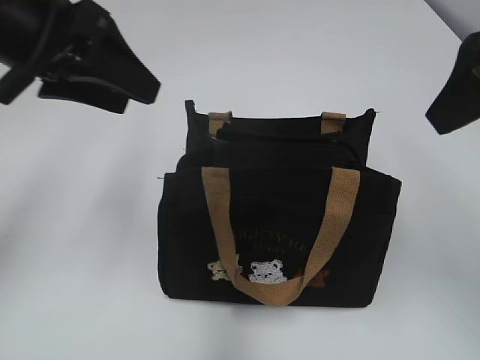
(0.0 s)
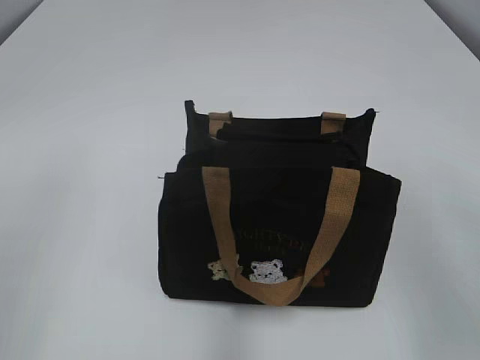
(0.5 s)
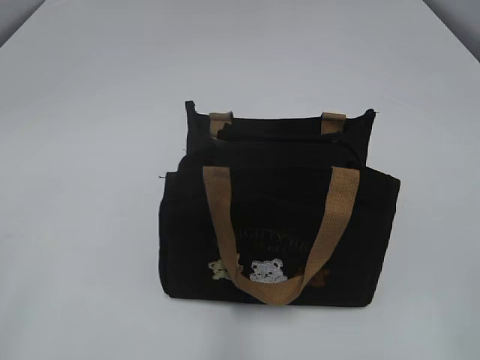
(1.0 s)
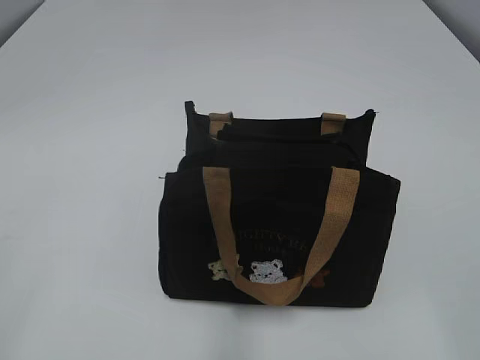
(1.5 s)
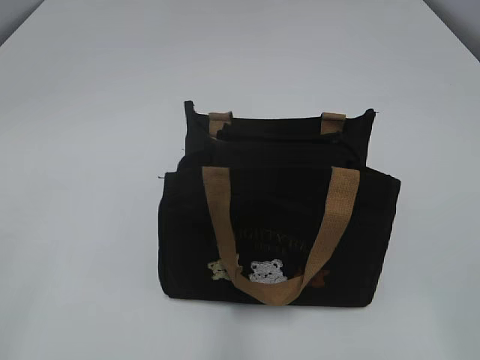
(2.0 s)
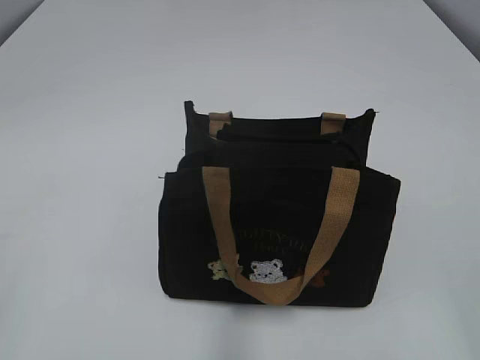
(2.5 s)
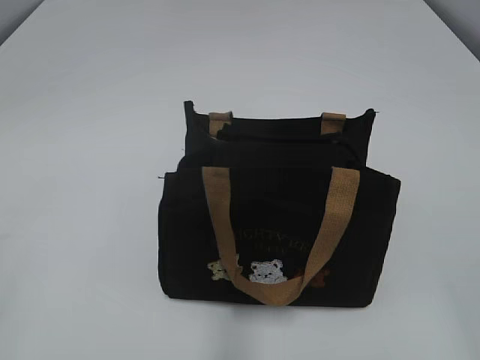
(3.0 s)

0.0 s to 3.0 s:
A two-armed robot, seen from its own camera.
0.0 to 1.5 s: The right gripper heads backward, covering some 25 cm; the left gripper goes roughly 30 cm backward and to the left.

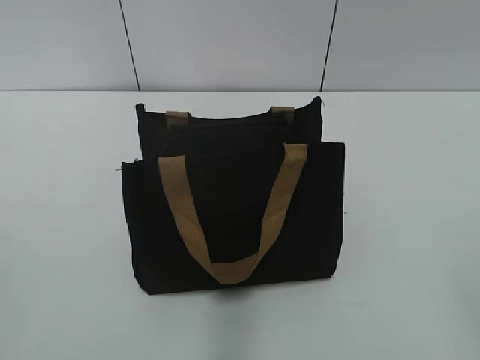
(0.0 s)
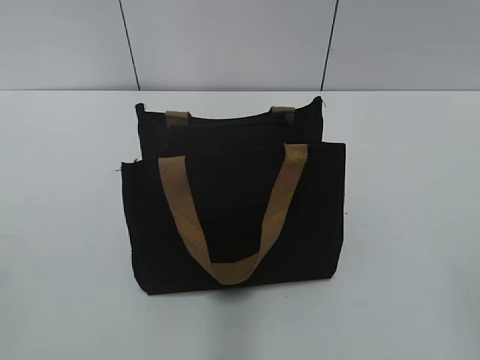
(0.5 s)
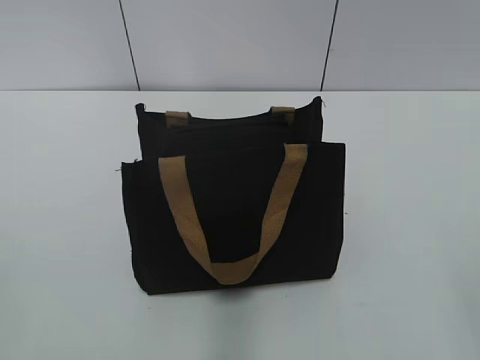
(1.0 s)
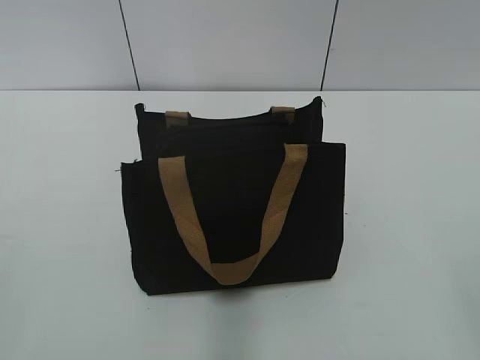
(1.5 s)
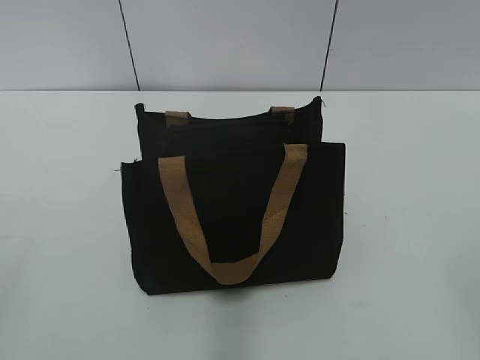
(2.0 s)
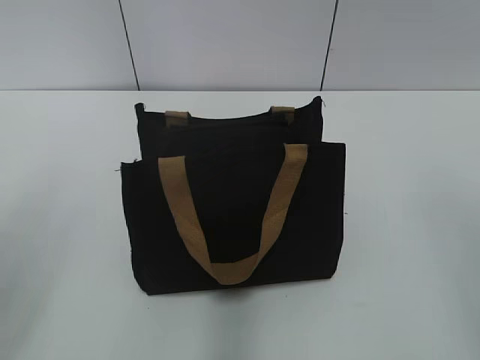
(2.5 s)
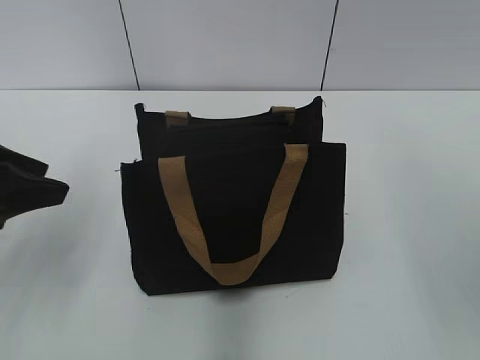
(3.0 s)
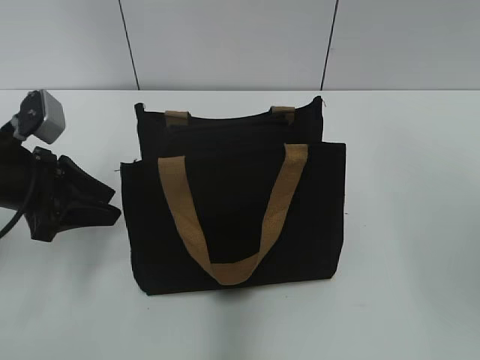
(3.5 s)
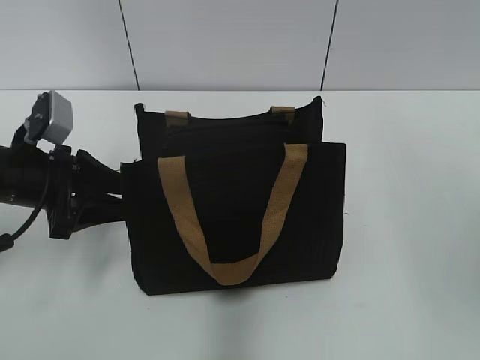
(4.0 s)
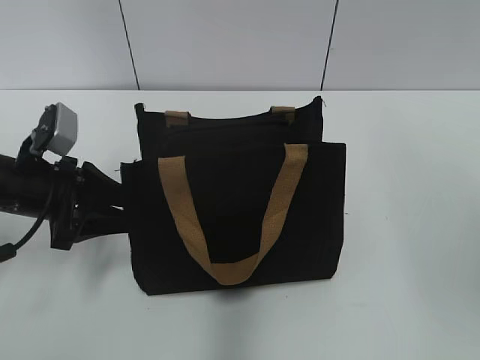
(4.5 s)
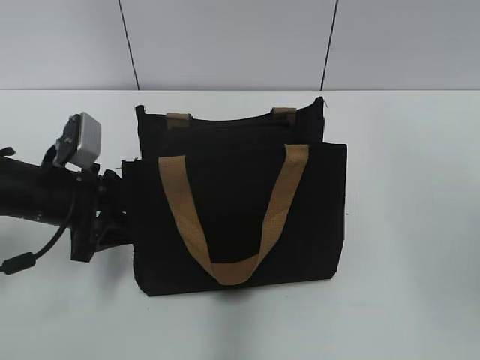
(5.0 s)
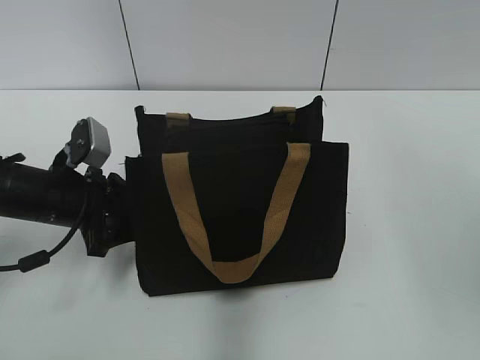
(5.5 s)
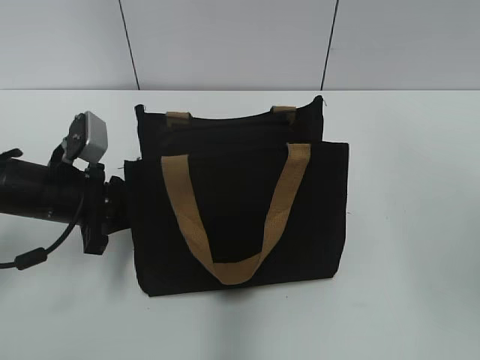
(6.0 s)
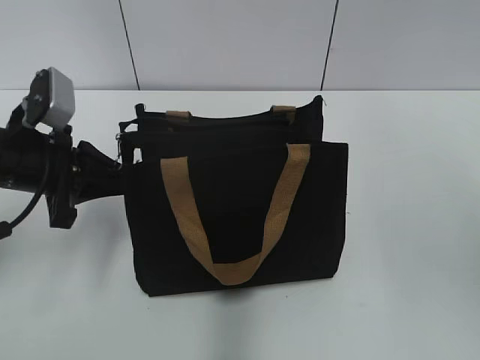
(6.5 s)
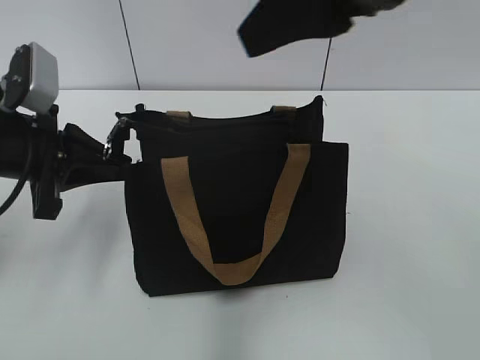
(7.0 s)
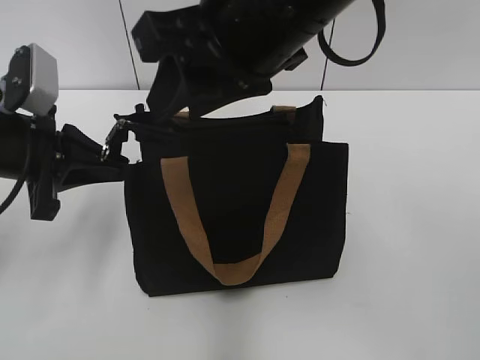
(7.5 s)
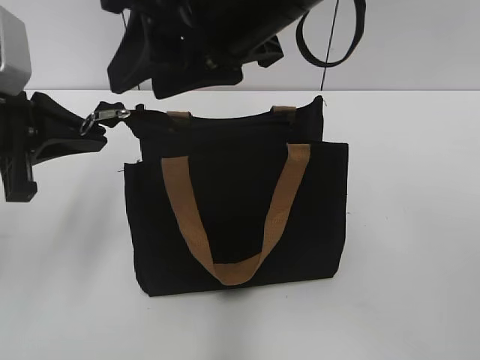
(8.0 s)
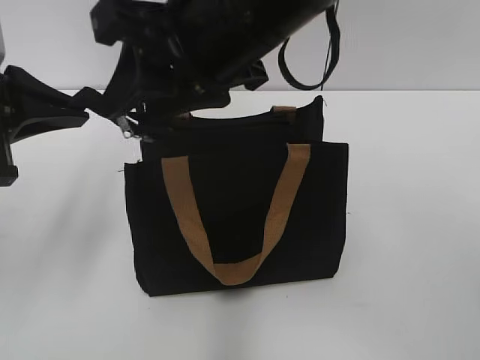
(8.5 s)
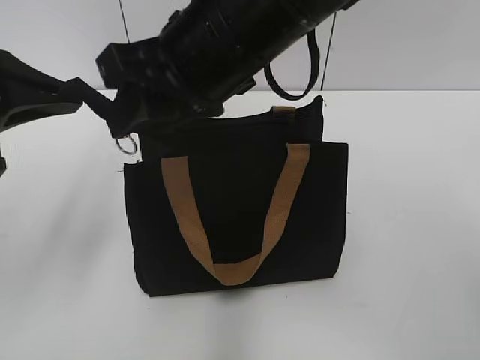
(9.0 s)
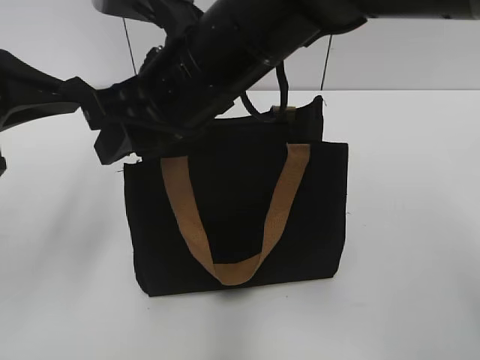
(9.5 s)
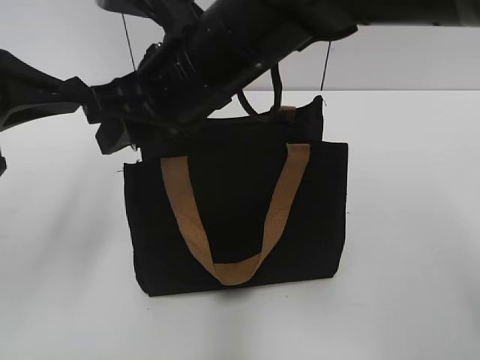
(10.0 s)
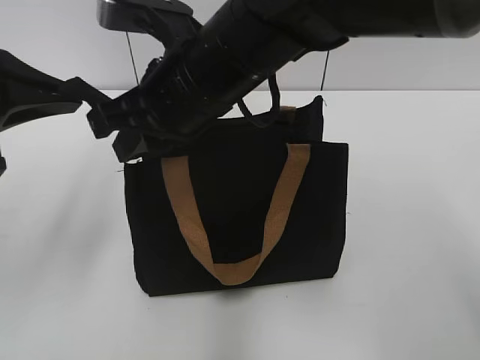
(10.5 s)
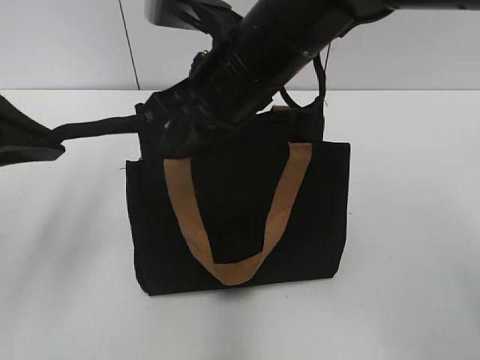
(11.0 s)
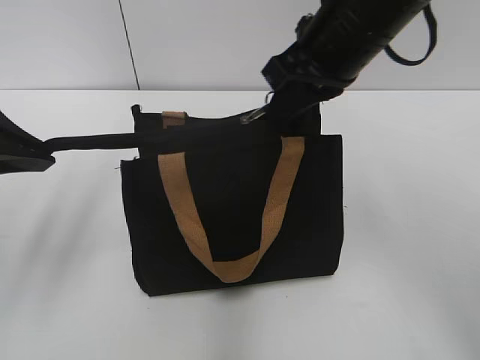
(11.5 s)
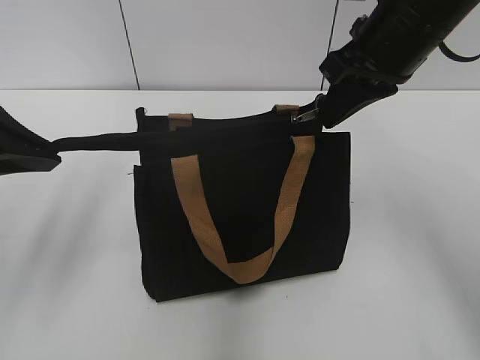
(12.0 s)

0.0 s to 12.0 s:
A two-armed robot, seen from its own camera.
2.0 to 4.0 s: The left gripper goes roughly 35 cm forward and downward.
4.0 to 6.0 s: The left gripper closes up.
6.0 to 8.0 s: The left gripper travels upward by about 15 cm, while the right gripper is displaced to the left by approximately 25 cm.
8.0 to 10.0 s: The left gripper ends up approximately 5 cm from where it was, while the right gripper goes roughly 5 cm downward.
10.0 to 12.0 s: The right gripper shifts roughly 15 cm to the right, and closes its fingers.

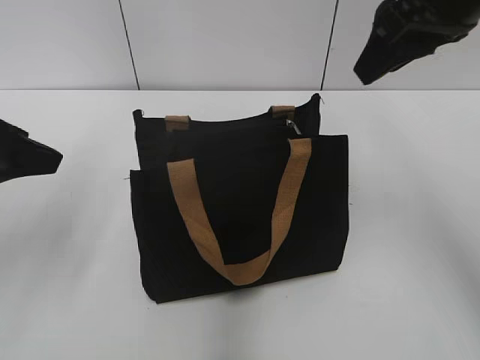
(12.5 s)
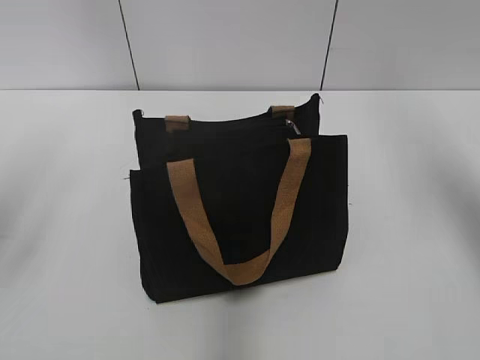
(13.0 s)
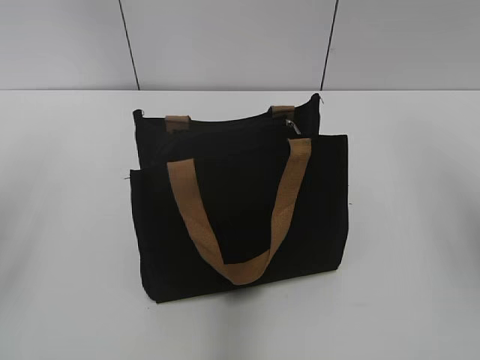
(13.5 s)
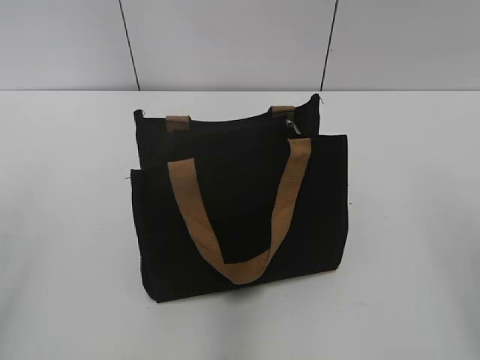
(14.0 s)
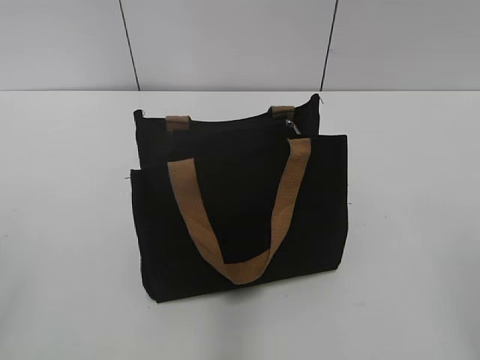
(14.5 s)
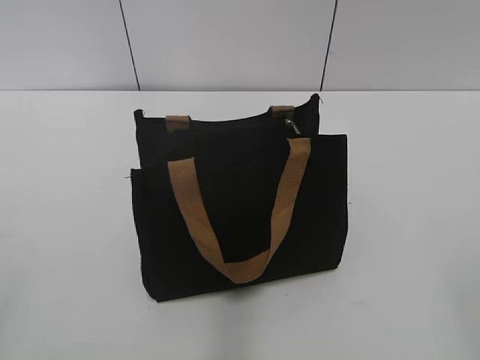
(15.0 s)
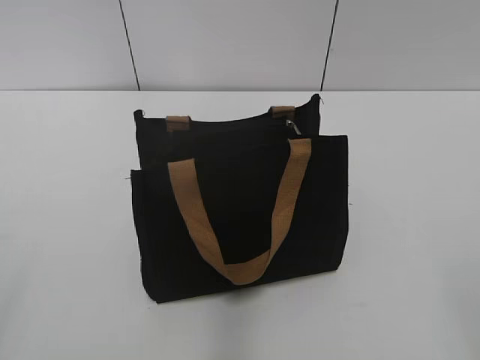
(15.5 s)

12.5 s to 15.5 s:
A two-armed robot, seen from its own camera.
12.5 to 14.0 s: The left gripper is displaced backward by about 15 cm; the right gripper shifts some 25 cm backward and to the right.

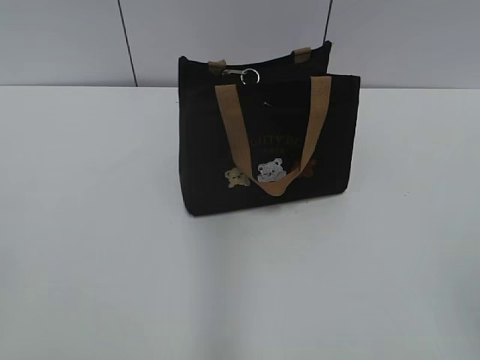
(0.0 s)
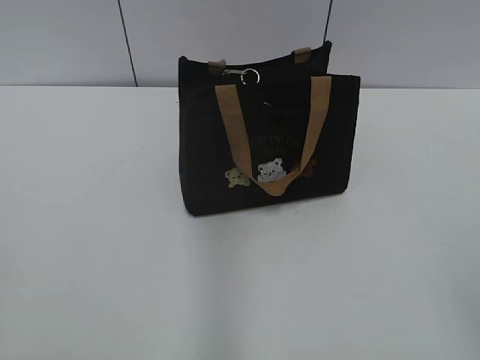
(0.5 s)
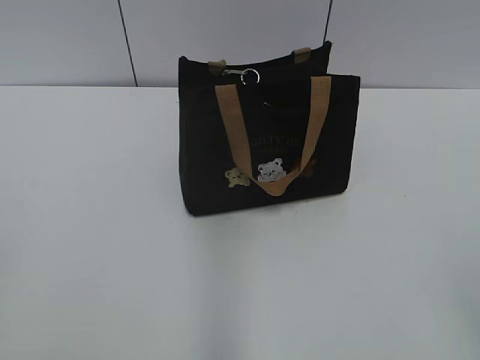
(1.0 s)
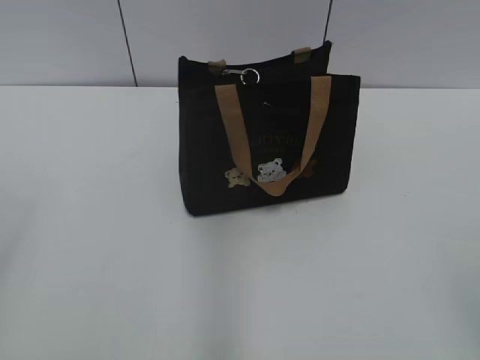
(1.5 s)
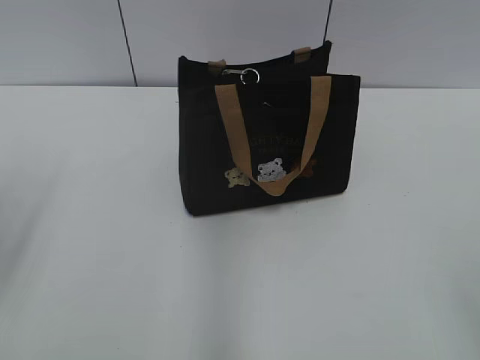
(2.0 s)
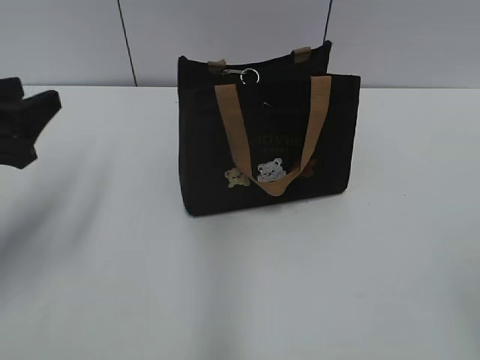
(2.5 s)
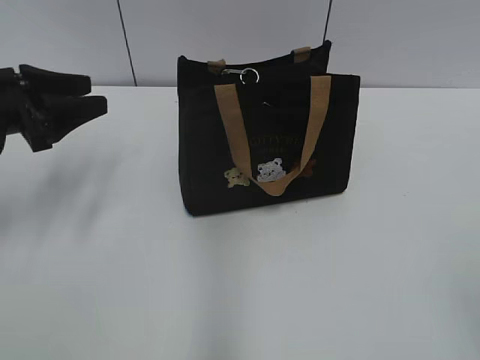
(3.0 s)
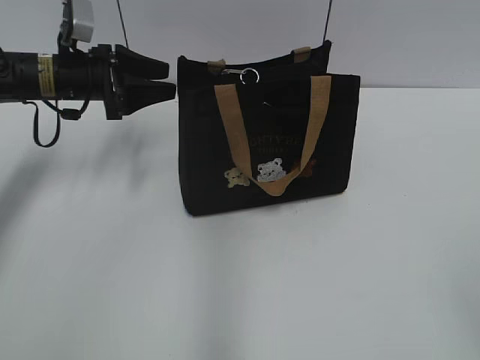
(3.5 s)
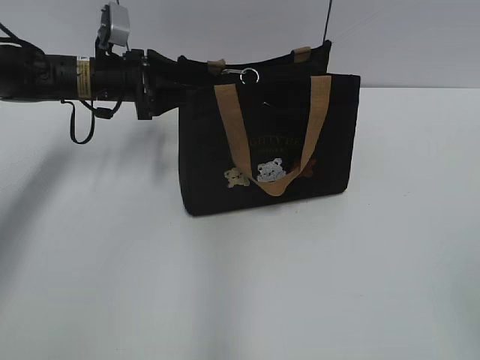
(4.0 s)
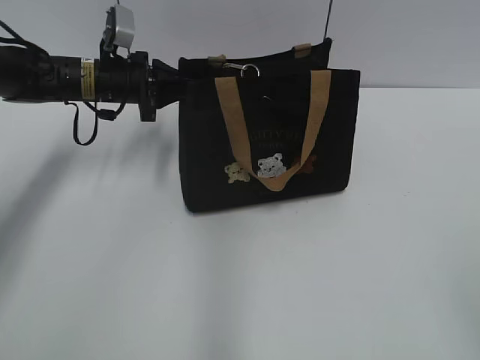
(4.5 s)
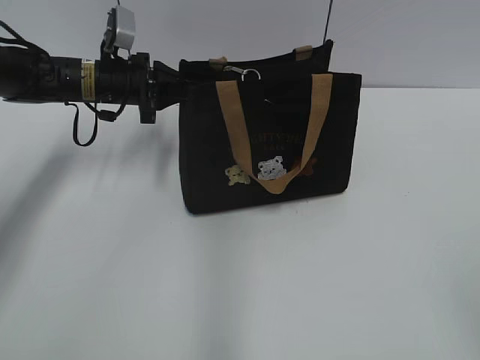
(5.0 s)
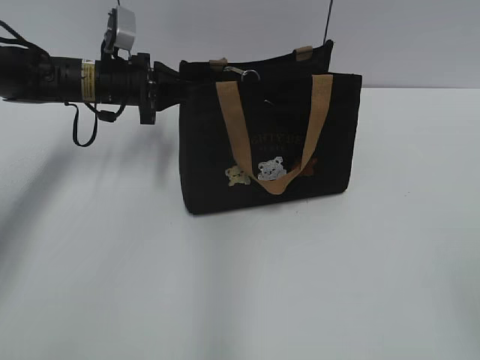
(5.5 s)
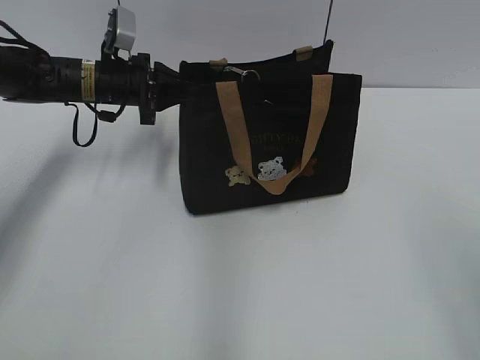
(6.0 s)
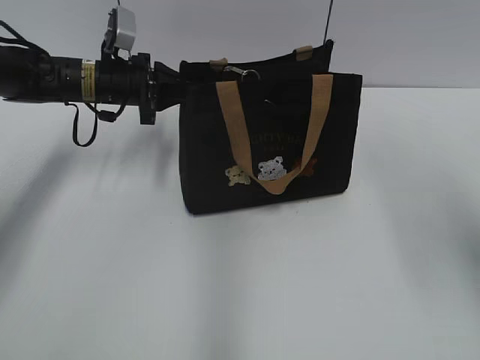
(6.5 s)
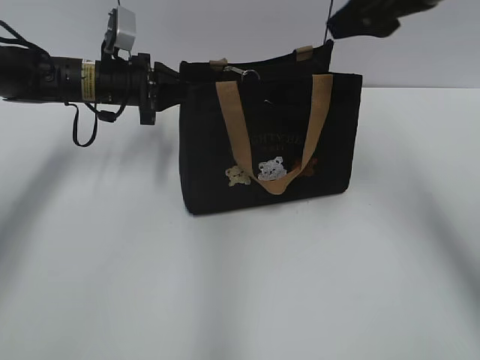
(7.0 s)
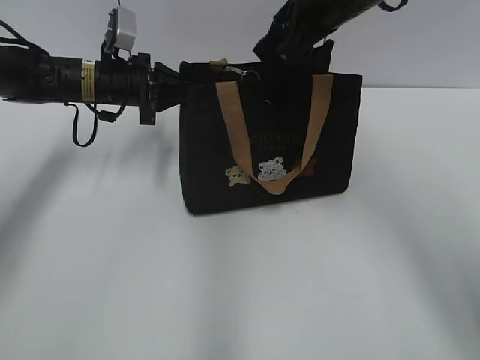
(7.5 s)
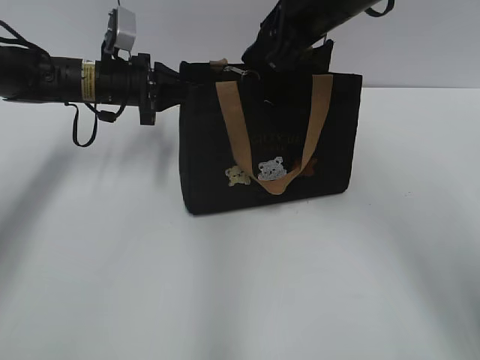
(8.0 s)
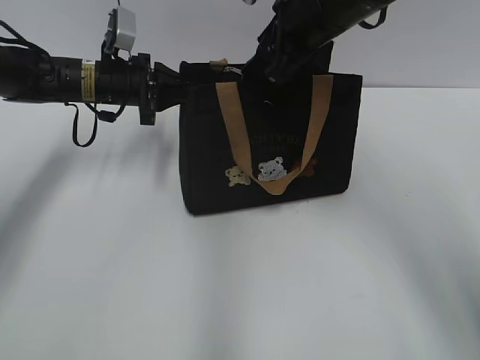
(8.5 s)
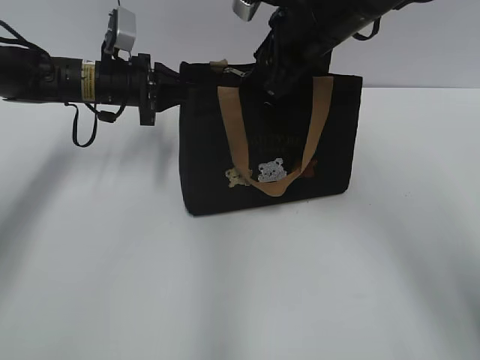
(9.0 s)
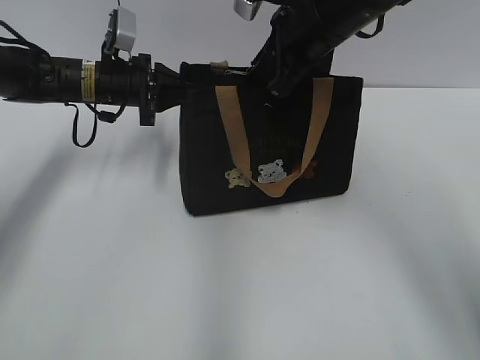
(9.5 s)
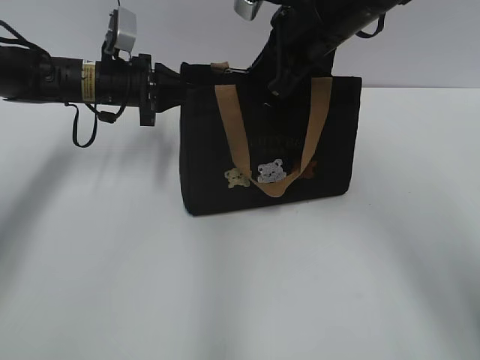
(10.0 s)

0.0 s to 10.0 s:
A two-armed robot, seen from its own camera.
2.0 to 4.0 s: The left gripper is displaced forward and to the right by roughly 30 cm.
4.0 to 6.0 s: The left gripper closes its fingers. The right gripper goes about 5 cm upward.
6.0 to 8.0 s: The right gripper travels forward and to the left by approximately 40 cm.
8.0 to 10.0 s: The right gripper closes up.
